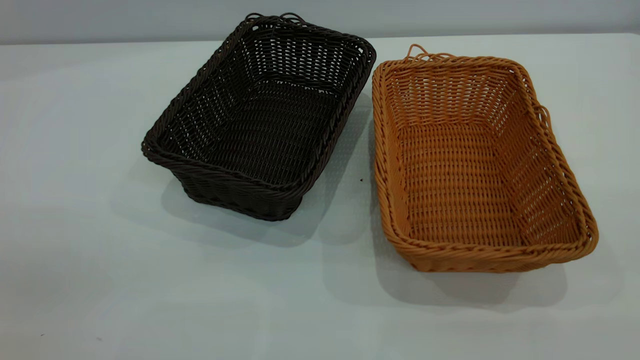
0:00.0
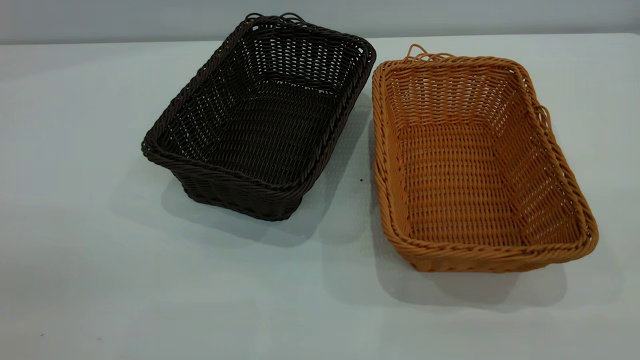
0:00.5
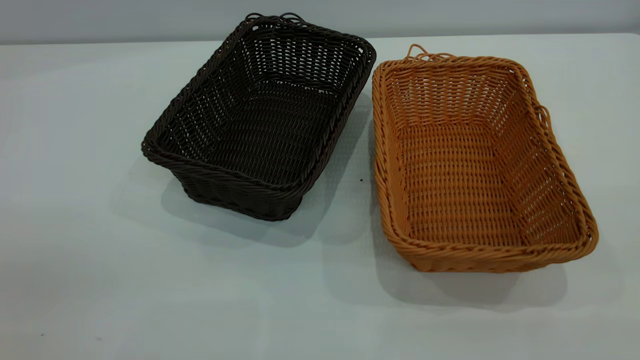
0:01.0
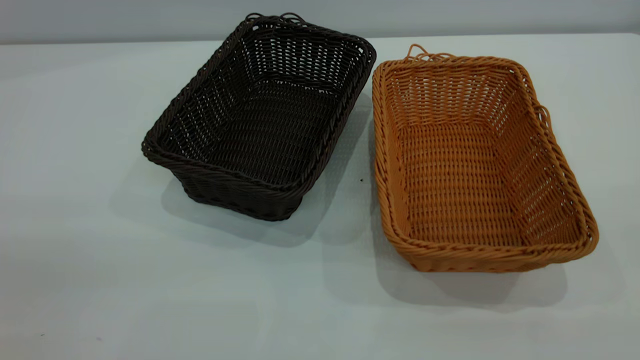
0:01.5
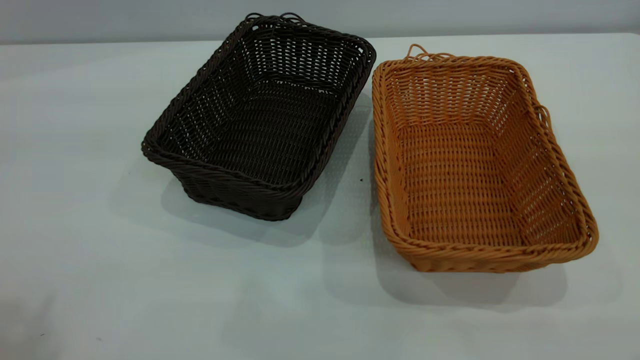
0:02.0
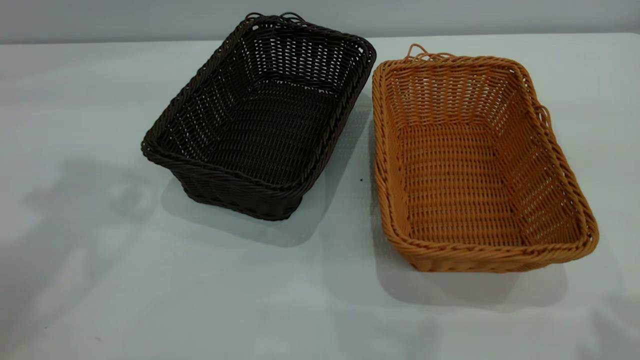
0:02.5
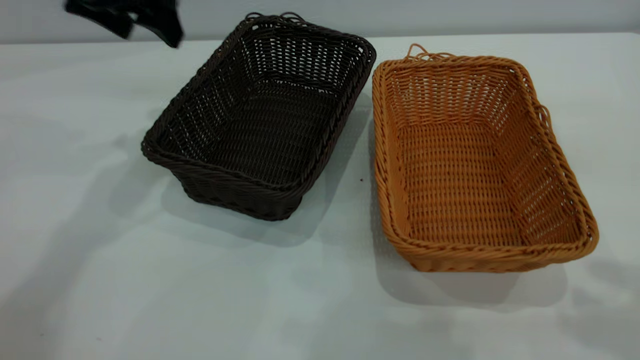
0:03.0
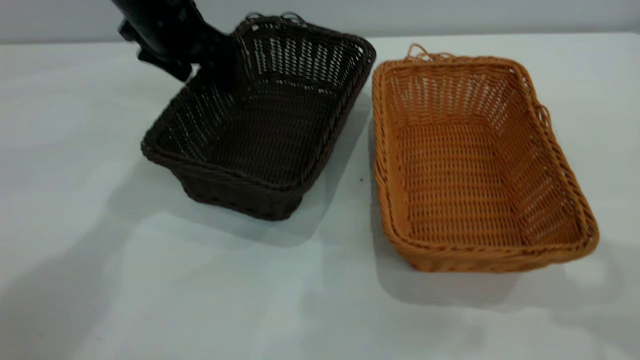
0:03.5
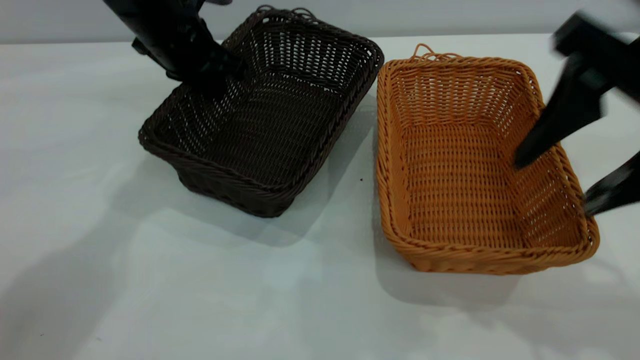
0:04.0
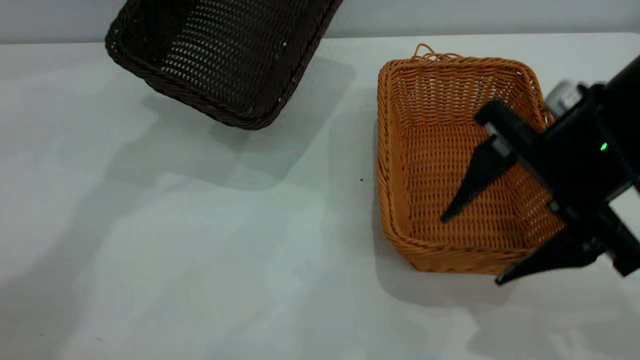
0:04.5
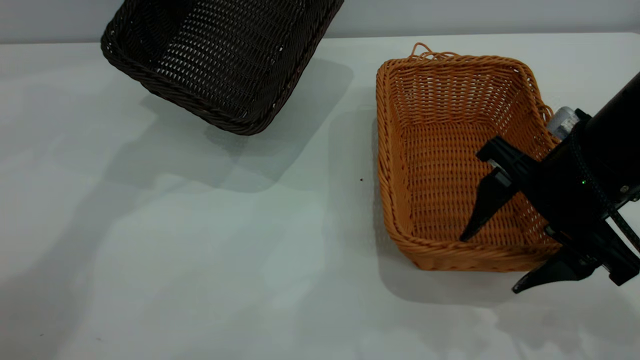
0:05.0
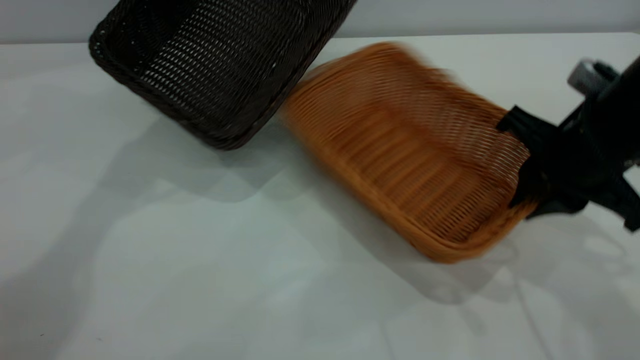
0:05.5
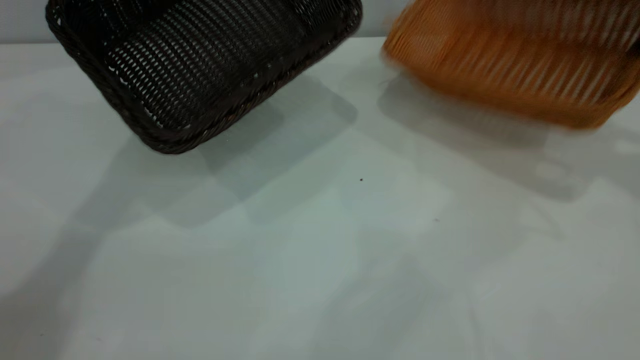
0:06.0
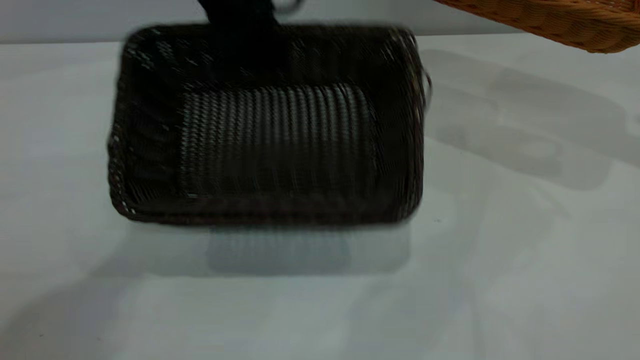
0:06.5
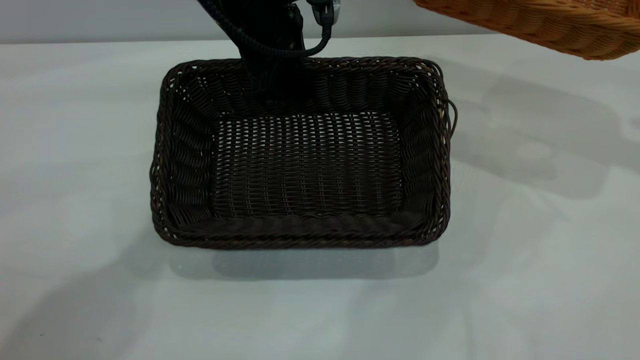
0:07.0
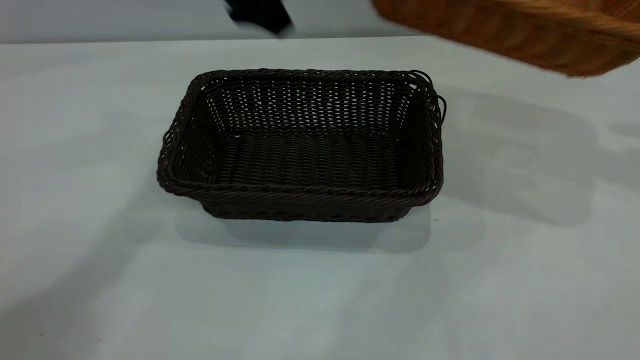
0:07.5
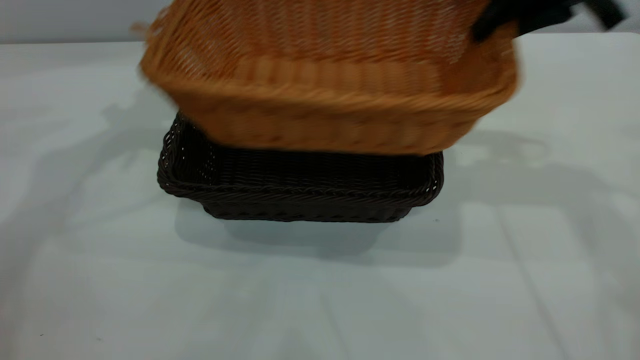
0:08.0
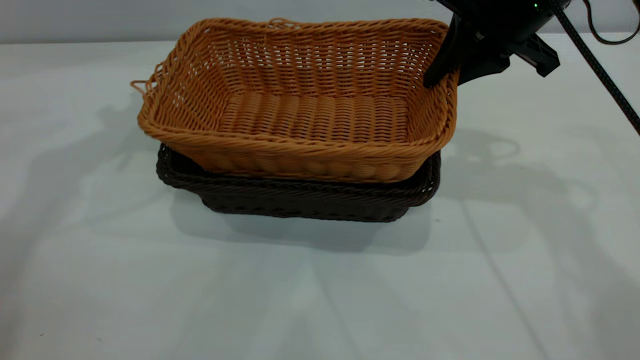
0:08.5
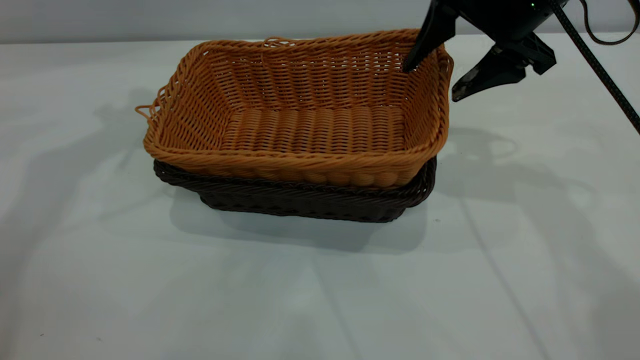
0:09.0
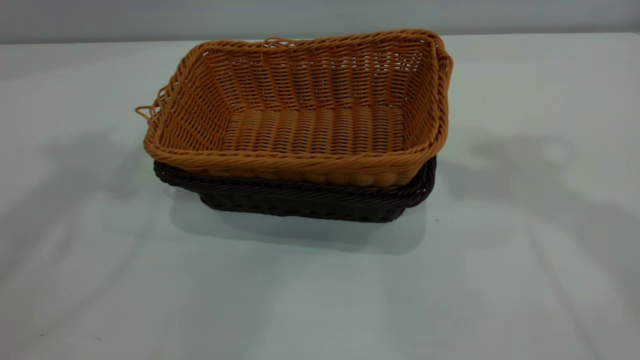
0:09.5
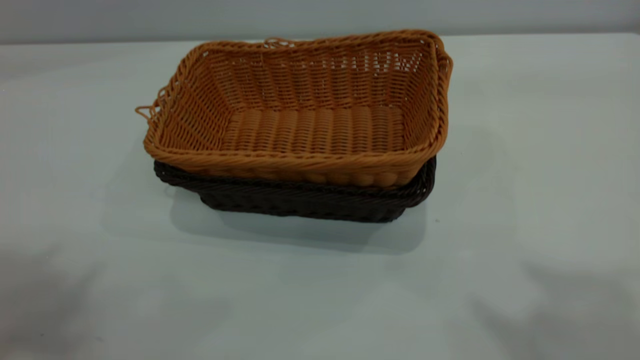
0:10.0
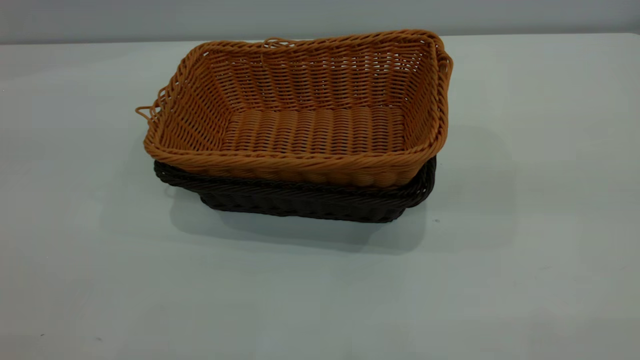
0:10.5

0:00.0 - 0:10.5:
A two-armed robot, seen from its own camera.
Task of the whole recording: the left gripper grasp the black basket and place it in the center of the table, the right gripper grasp the brown basket and place it inside the black one.
Step, 0:03.0 - 0:03.5: Grasp the dark basket with left gripper.
Step, 0:04.5 - 0:05.5: Grasp the light basket with right gripper.
Step, 0:06.0 - 0:07.0: Place the dark basket in the center of the table with left gripper.
Step, 0:07.5 - 0:08.5: Place the light basket on the dark basket with right gripper.
0:02.0 - 0:04.0: The right gripper moves forward, downward and to the left, roughly 25 cm. The left gripper moves forward, downward and to the right, some 40 cm, and closes its fingers.
0:04.0 - 0:06.5: The right gripper goes about 25 cm to the right and forward, and closes up, while the left gripper moves to the right and upward, approximately 10 cm.
0:06.5 - 0:08.5: The left gripper travels to the left and upward by about 20 cm, and opens its fingers. Meanwhile the right gripper goes approximately 25 cm to the left.
0:08.5 - 0:10.5: Both grippers travel together backward and upward, approximately 40 cm. The right gripper opens.
